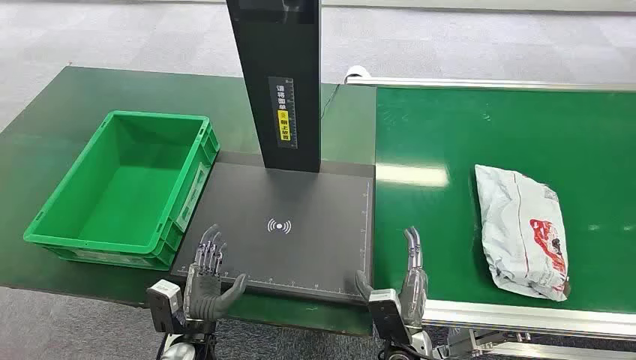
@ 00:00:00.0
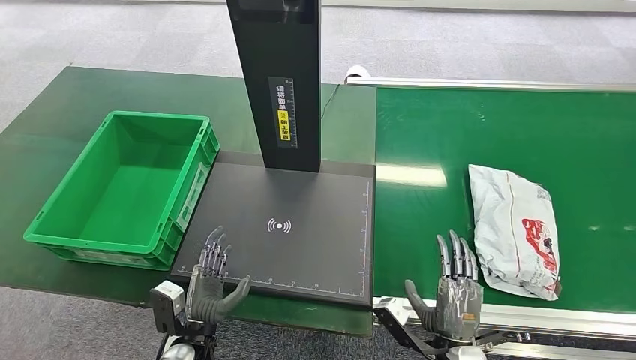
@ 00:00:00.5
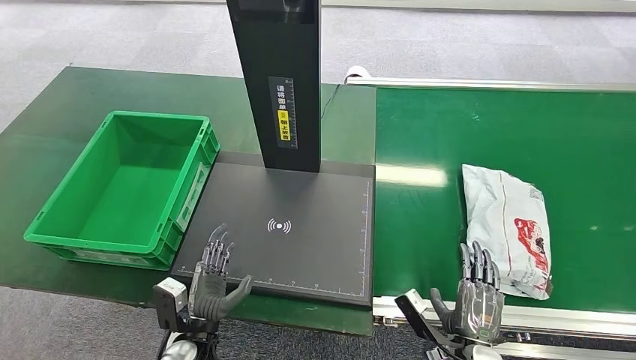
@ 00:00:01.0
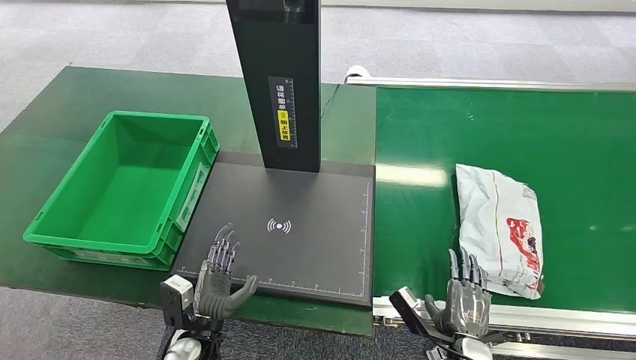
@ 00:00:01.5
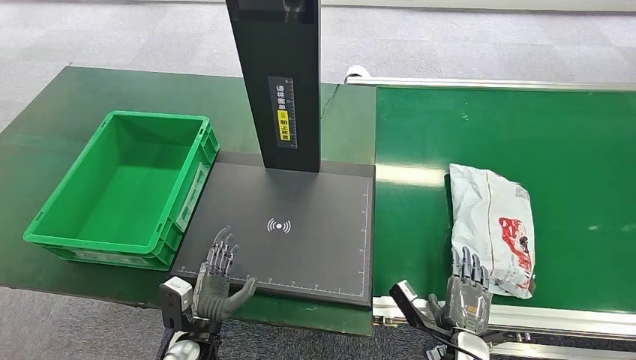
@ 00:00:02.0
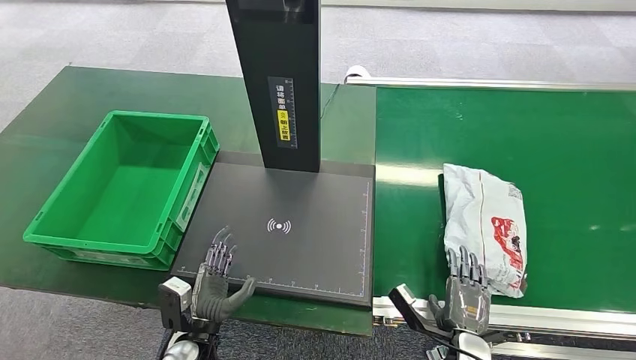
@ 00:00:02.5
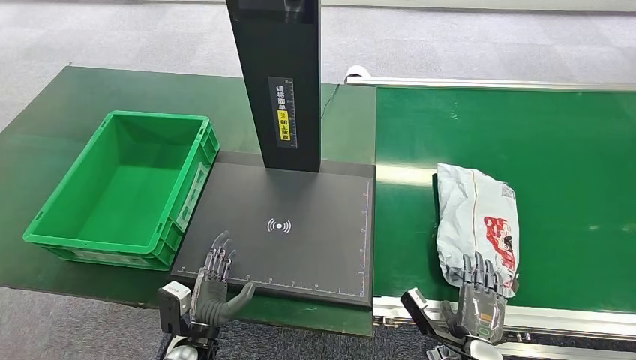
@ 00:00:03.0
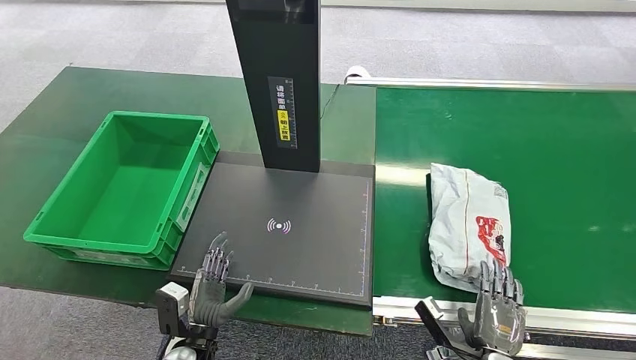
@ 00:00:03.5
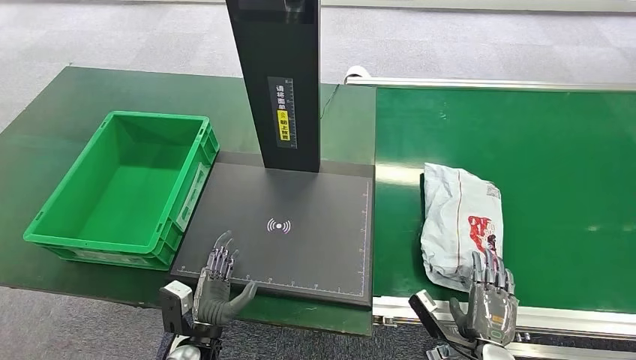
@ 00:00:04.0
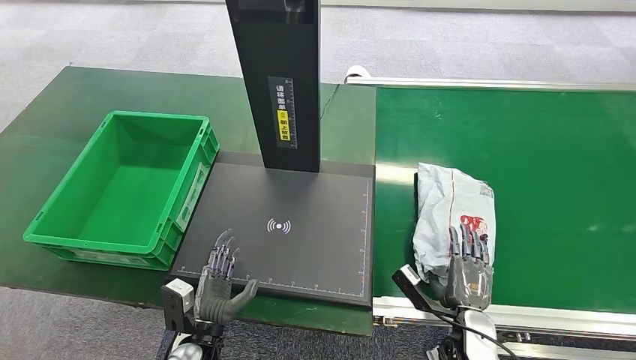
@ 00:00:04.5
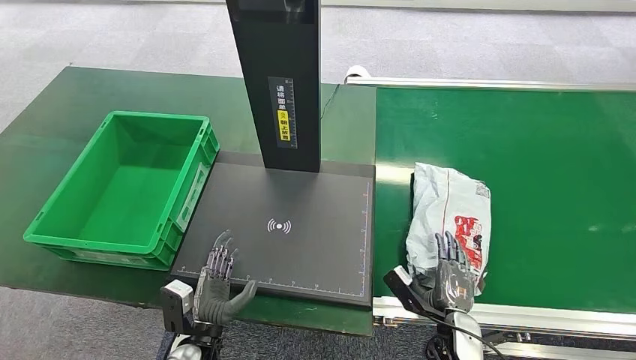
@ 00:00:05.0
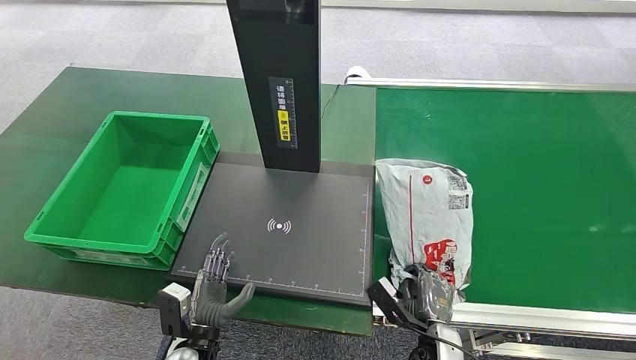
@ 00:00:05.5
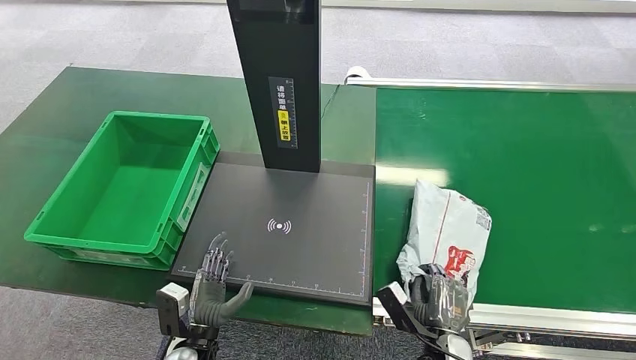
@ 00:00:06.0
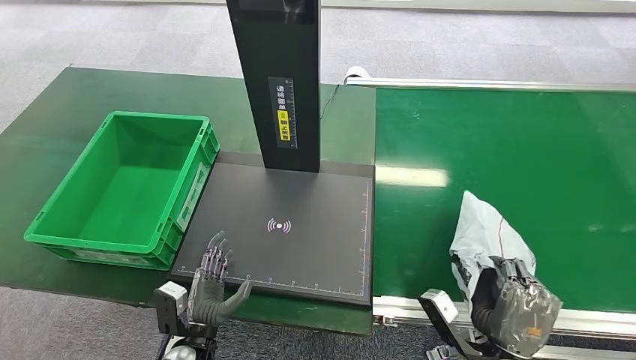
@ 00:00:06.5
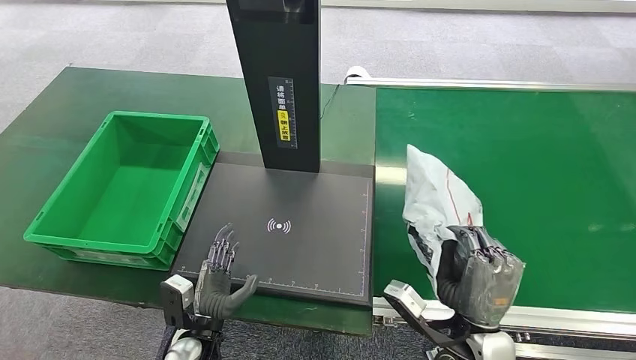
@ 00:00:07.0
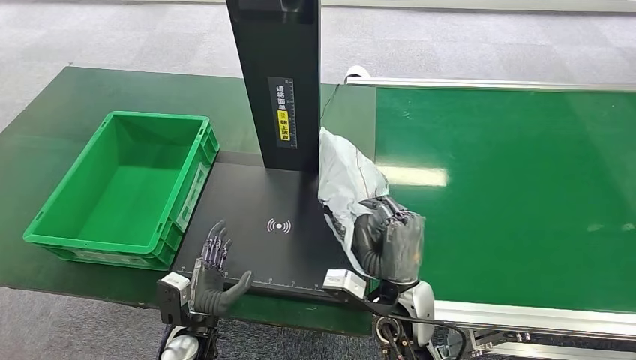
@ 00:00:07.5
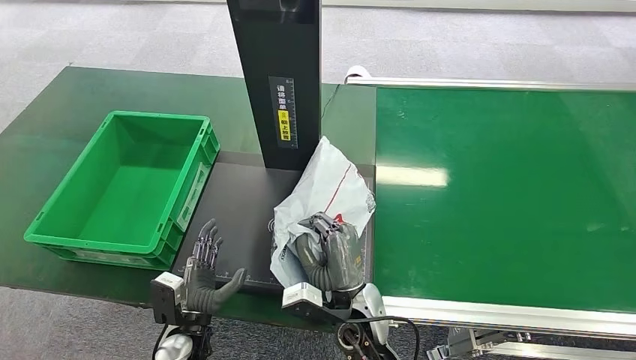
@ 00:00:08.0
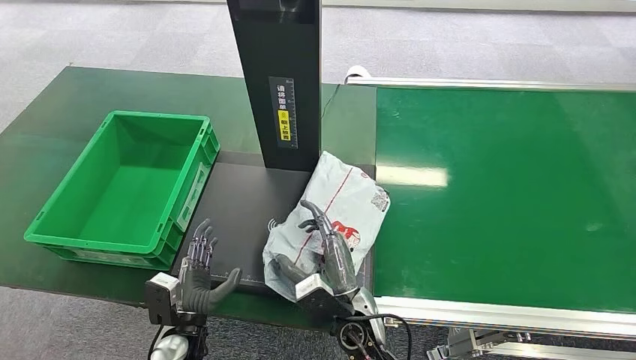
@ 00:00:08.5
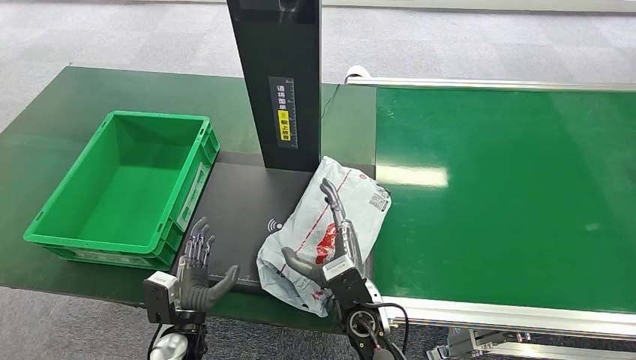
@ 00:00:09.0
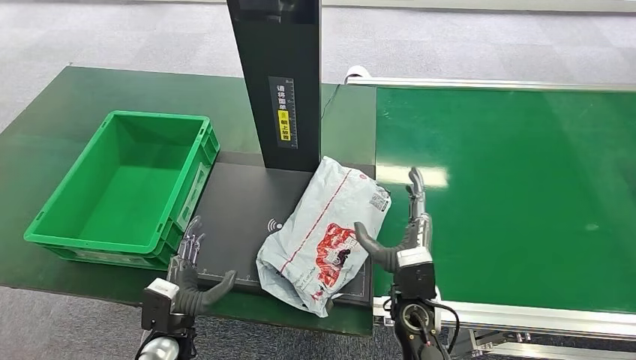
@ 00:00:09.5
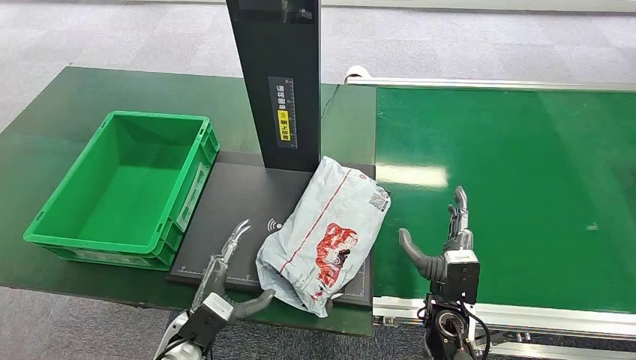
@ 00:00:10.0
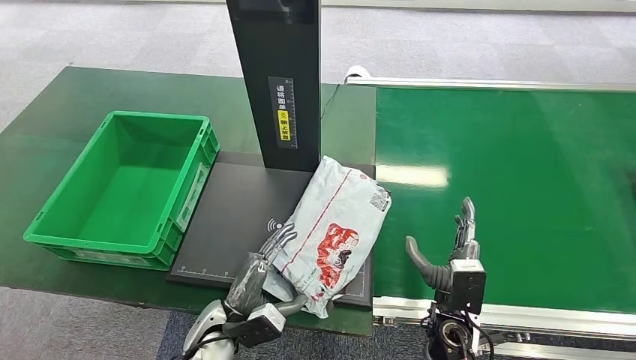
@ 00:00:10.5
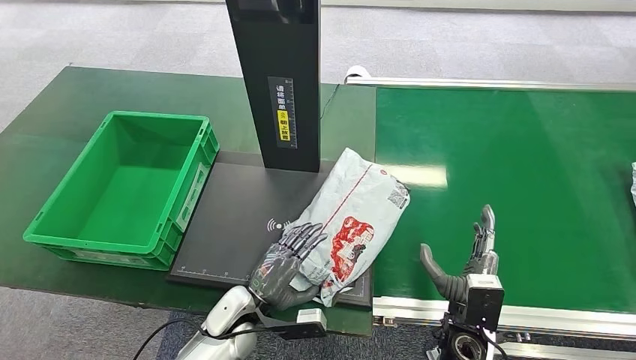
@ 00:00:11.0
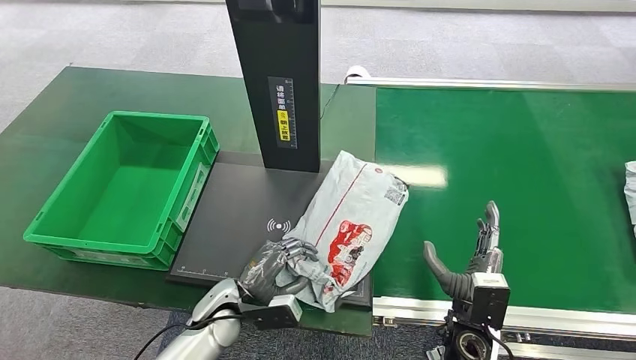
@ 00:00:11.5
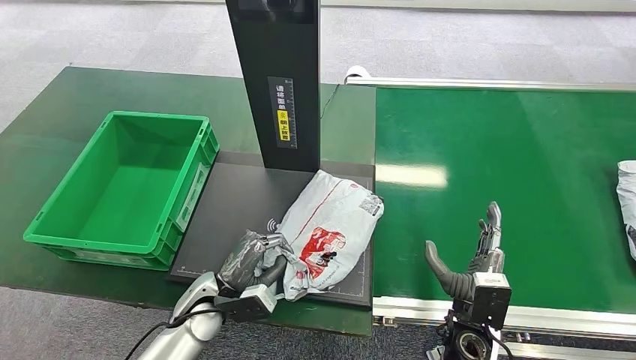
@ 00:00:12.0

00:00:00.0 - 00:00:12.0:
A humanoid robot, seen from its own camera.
Step, 00:00:00.0 - 00:00:06.5: Pick up the package from the conveyor belt.
Step, 00:00:07.0 - 00:00:09.0: Place the package onto the inbound machine.
00:00:02.0 - 00:00:04.0: There are only small adjustments of the hands.
00:00:04.0 - 00:00:06.0: The right hand is displaced to the left by some 5 cm.
00:00:06.0 - 00:00:08.0: The right hand heads to the left and upward, covering approximately 20 cm.
00:00:08.0 - 00:00:10.0: The right hand travels to the right by some 15 cm.
00:00:10.0 - 00:00:12.0: The left hand moves forward, roughly 5 cm.

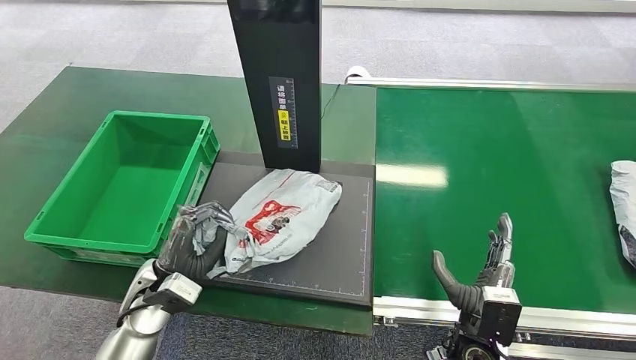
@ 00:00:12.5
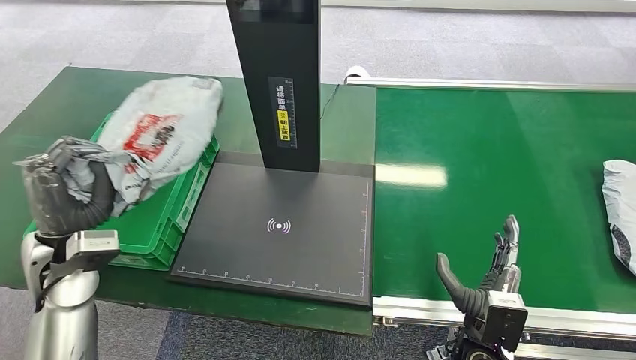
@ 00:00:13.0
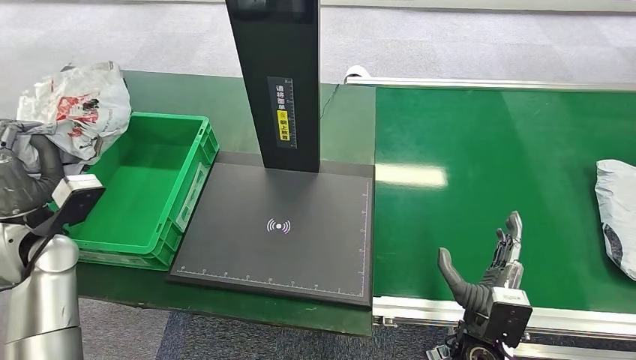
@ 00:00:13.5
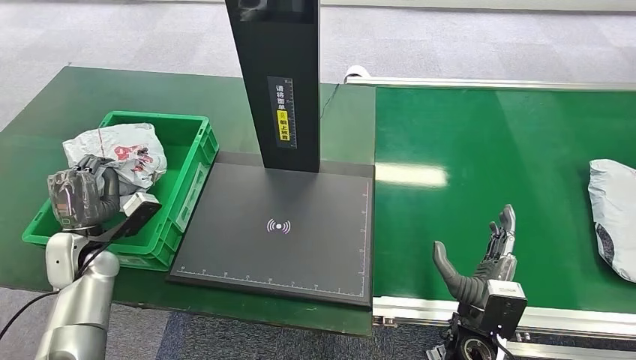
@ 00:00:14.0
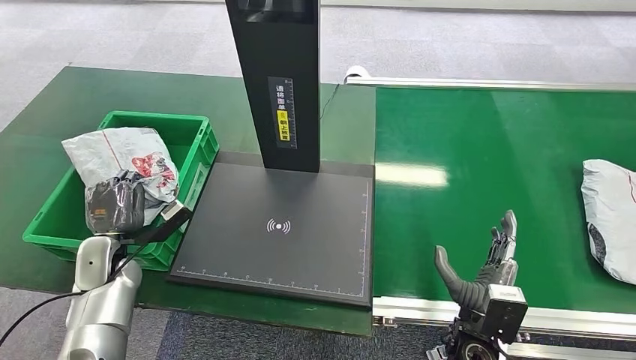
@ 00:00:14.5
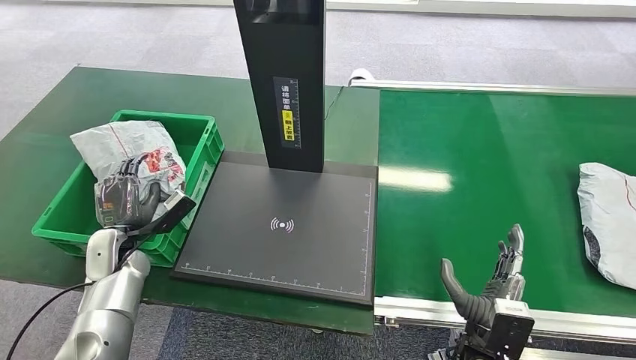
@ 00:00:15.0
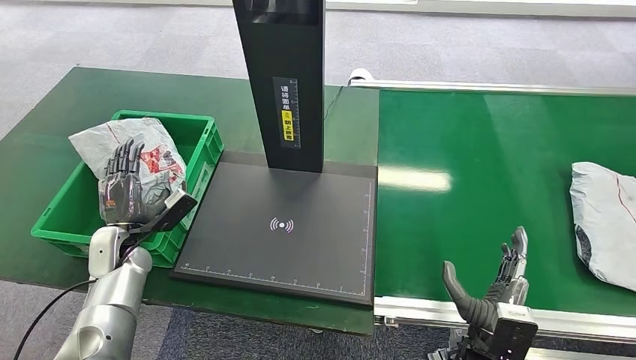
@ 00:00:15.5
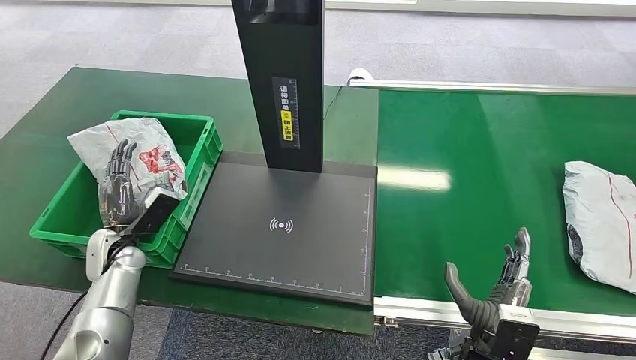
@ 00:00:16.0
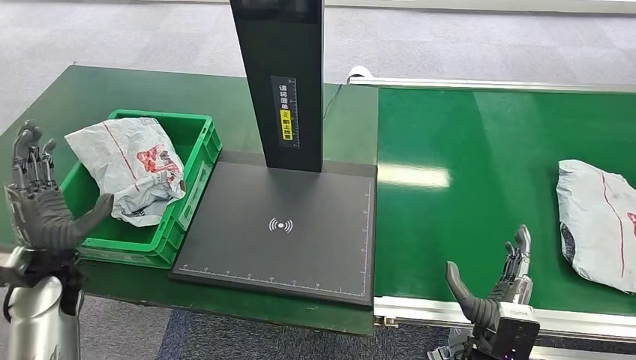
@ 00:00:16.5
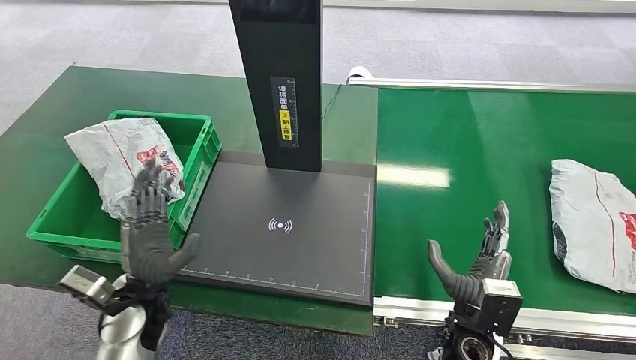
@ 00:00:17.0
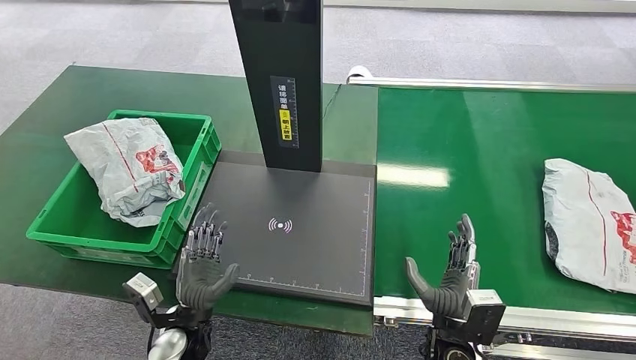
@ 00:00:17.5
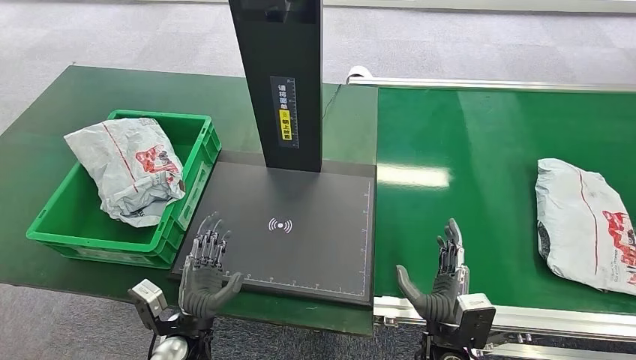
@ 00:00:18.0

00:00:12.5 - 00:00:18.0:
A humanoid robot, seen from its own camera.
Step, 00:00:13.0 - 00:00:18.0: Place the package into the parcel locker.
00:00:12.5 - 00:00:14.5: The left hand is displaced to the left and forward by some 15 cm.
